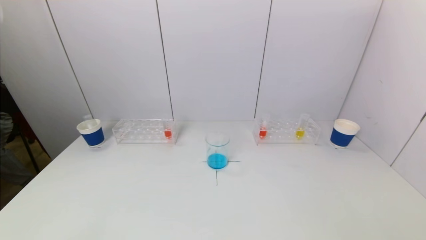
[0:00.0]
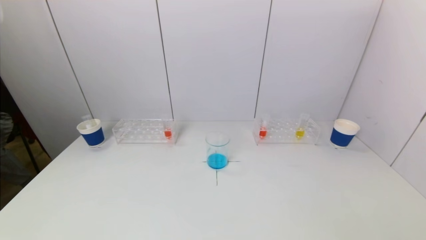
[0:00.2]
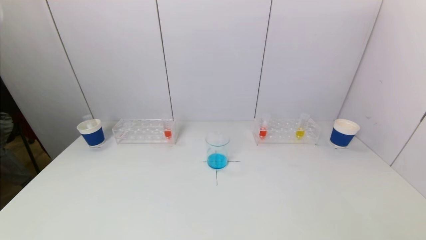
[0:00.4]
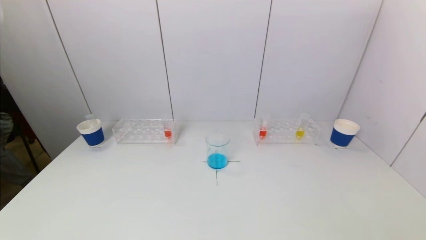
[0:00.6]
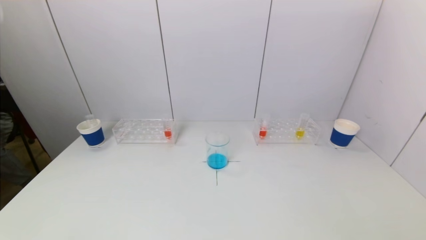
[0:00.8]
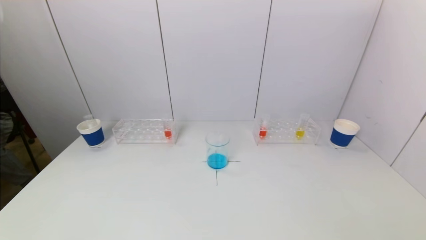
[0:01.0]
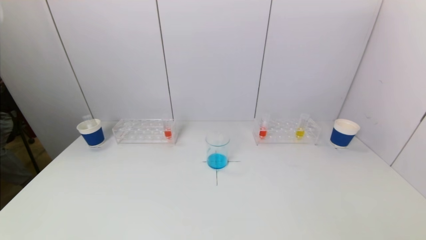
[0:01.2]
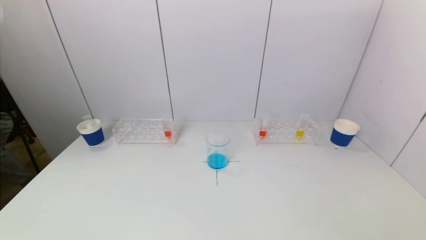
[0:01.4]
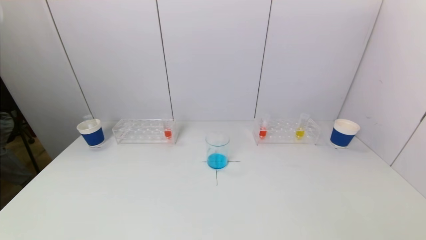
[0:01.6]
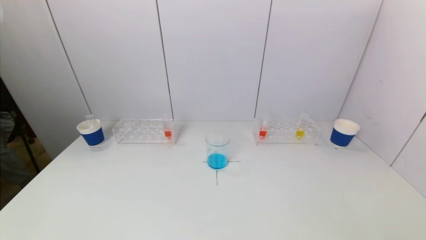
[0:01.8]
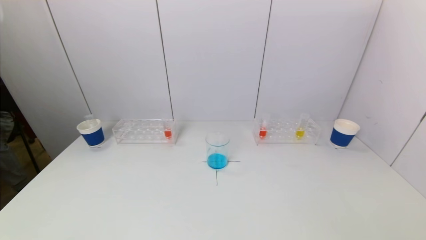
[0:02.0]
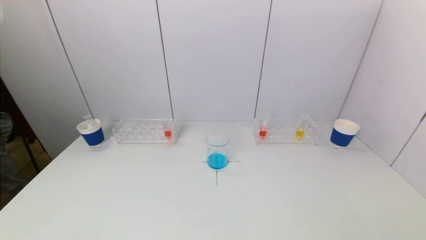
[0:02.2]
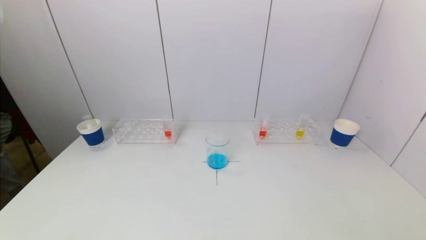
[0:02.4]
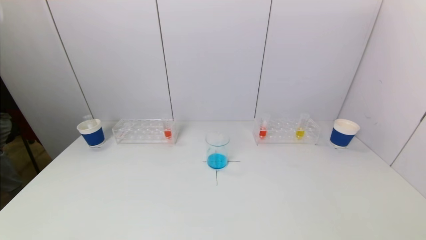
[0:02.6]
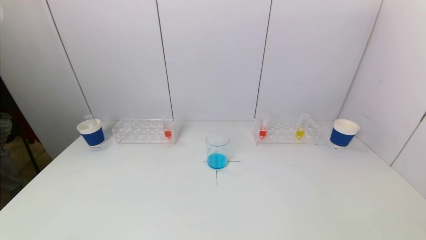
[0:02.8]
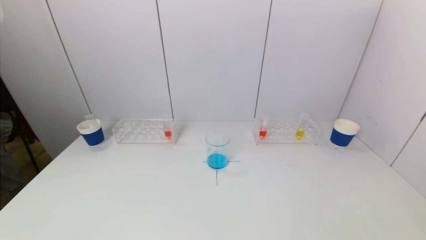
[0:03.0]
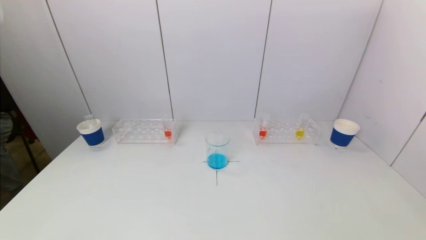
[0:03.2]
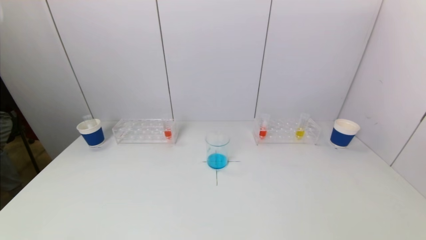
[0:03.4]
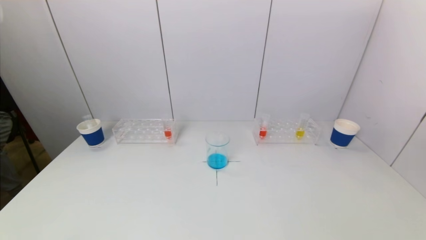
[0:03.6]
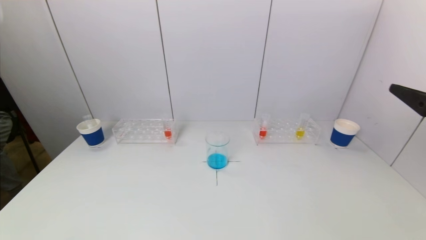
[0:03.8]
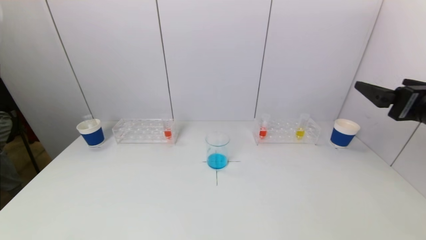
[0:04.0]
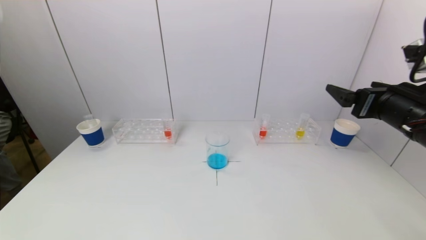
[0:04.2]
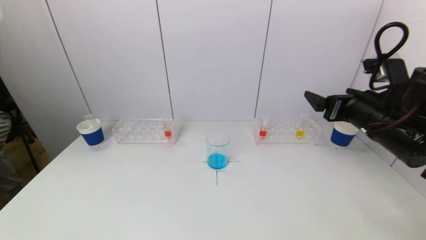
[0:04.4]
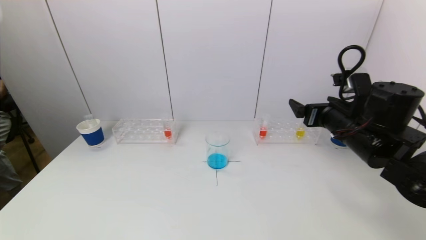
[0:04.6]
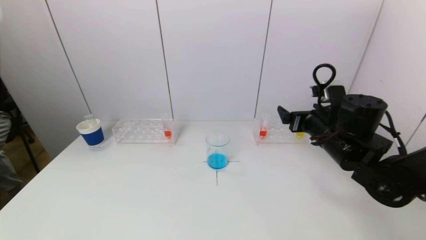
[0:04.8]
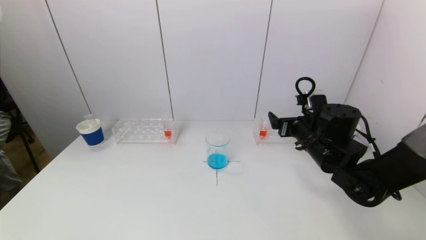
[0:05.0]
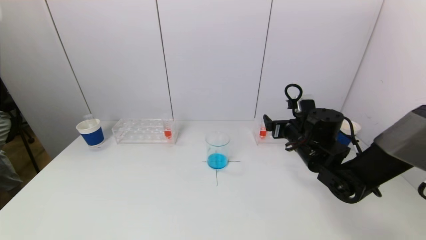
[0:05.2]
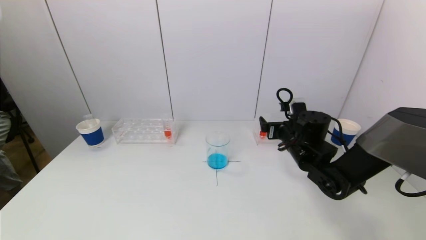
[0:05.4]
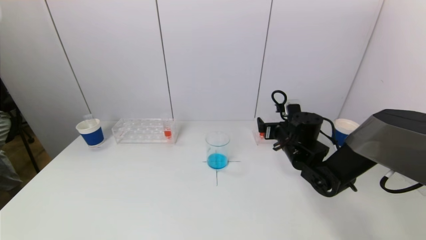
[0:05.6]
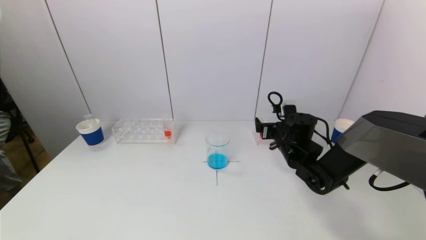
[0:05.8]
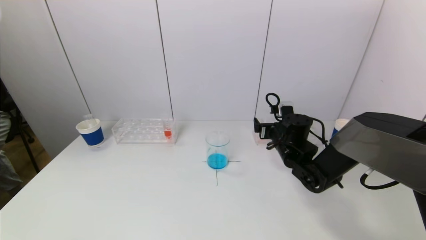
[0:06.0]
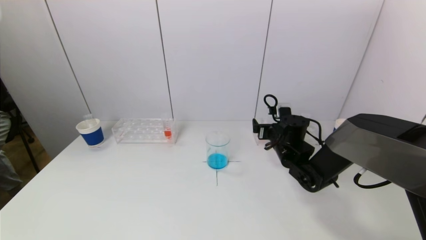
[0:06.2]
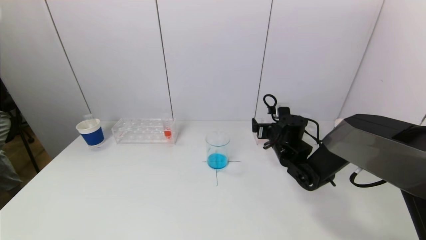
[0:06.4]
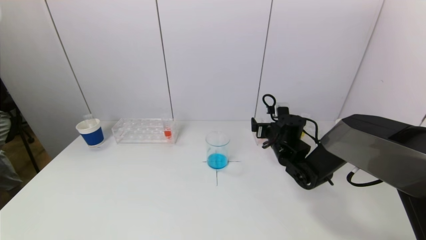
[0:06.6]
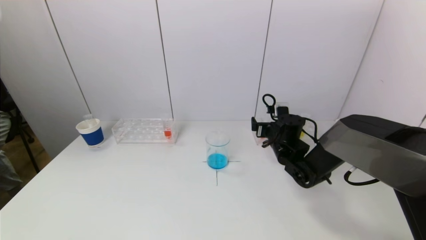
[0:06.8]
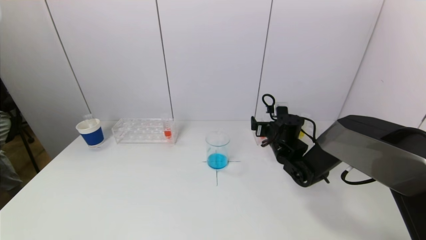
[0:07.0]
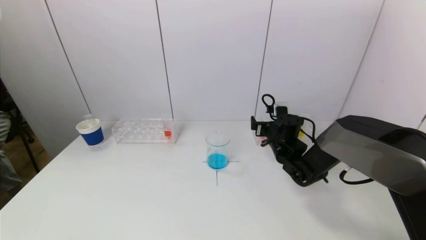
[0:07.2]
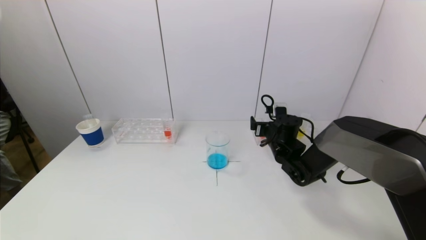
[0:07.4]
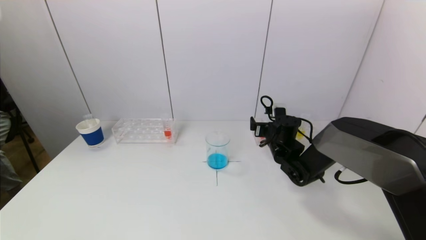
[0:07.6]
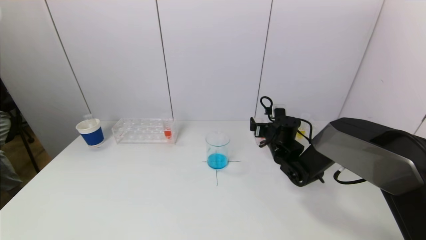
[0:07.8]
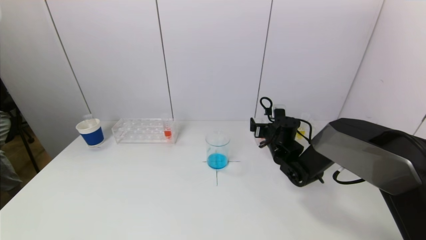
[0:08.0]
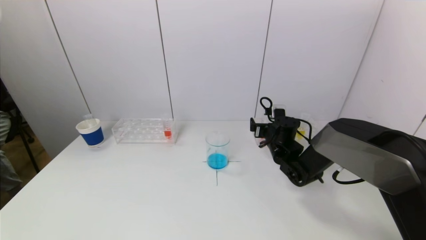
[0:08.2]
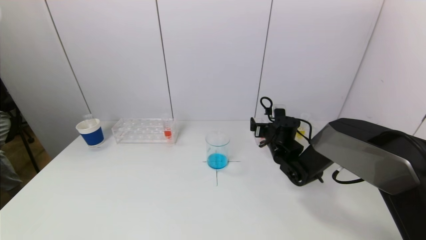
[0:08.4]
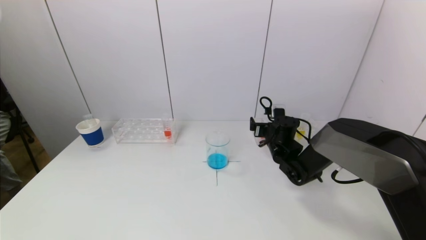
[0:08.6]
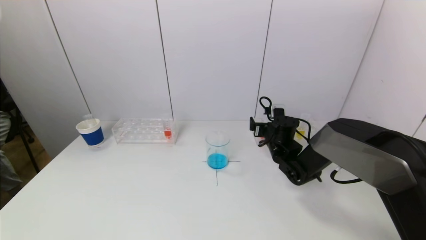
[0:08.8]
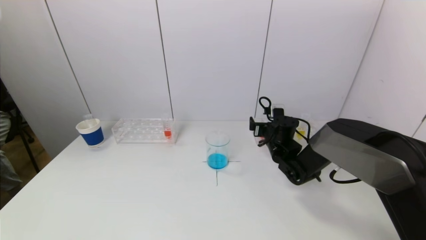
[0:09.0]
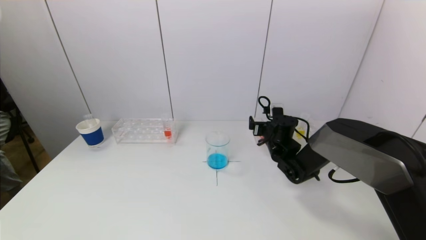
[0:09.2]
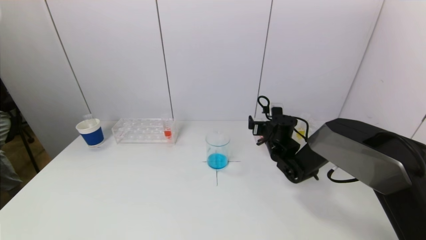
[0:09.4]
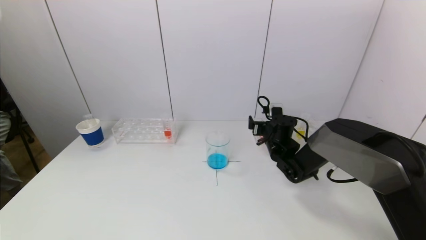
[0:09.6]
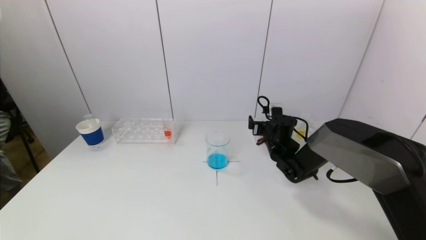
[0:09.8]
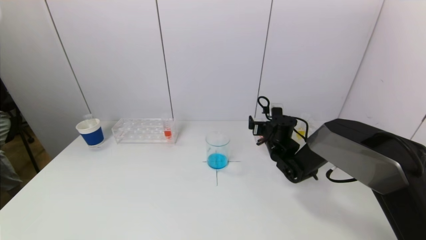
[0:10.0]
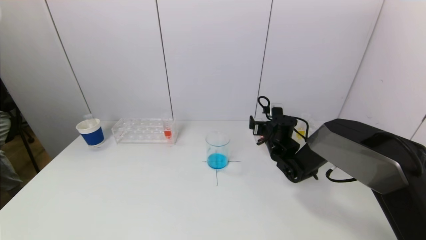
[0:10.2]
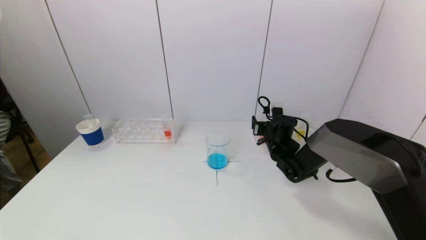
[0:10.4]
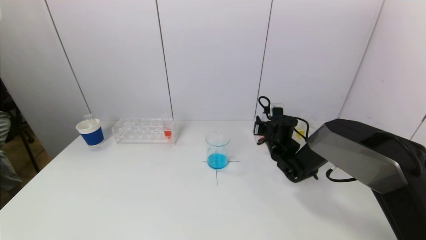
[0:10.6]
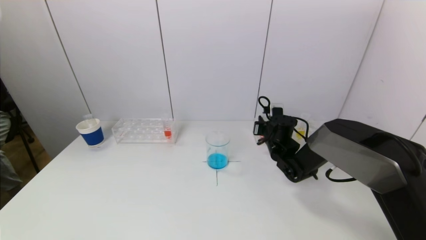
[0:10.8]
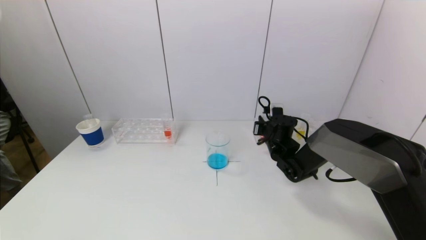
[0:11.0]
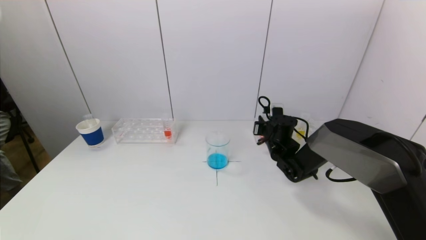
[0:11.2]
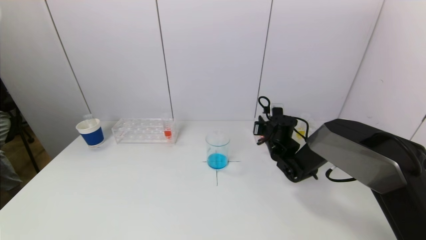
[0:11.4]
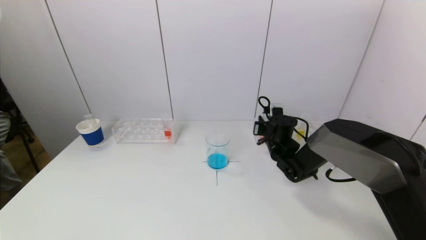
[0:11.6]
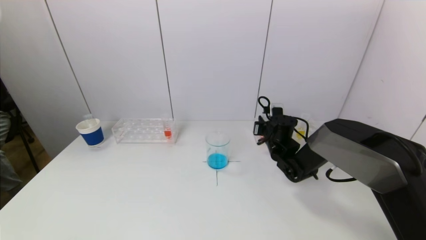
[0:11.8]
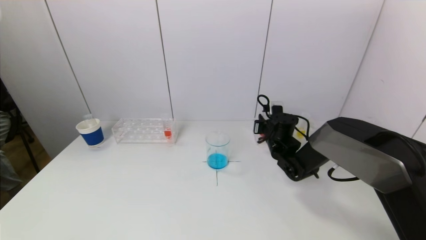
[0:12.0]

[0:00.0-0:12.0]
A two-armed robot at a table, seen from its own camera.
Task of the whole recording: pick up a test tube with pigment on left test tube rack and a test tube with pigment on right test tube rack by grippers and pour them into the beaker.
Step, 0:00.0 to 0:11.2: Grasp the red reagent with the right gripper.
0:03.0 to 0:04.4: The right gripper is displaced forward by roughly 30 cm.
0:04.4 to 0:06.0: The right gripper is displaced downward, forward and to the left by approximately 20 cm.
0:06.0 to 0:07.6: There are only small adjustments of the grippers.
0:07.6 to 0:09.0: Both grippers stay about where they are.
0:09.0 to 0:10.4: Both grippers stay about where they are.
0:10.4 to 0:12.0: The right gripper closes.

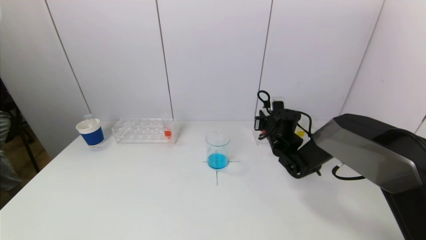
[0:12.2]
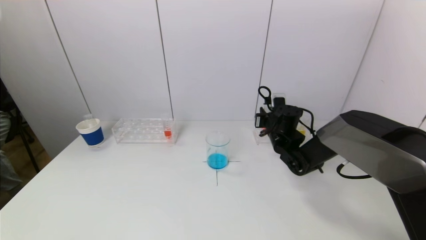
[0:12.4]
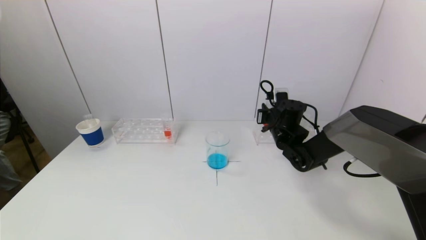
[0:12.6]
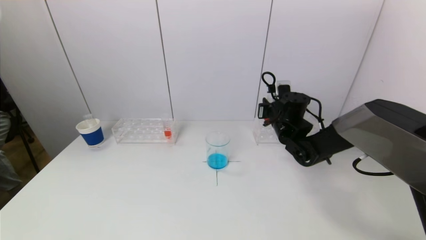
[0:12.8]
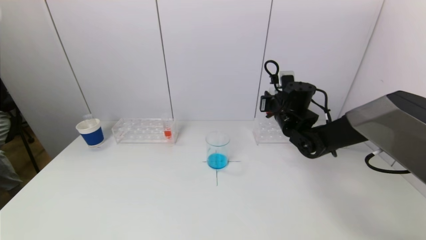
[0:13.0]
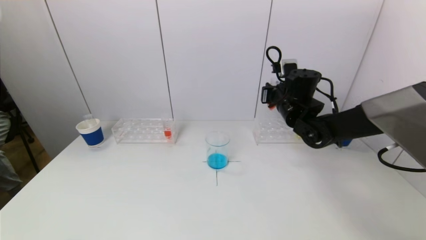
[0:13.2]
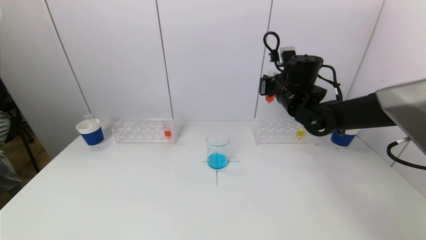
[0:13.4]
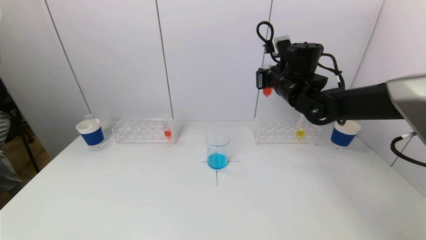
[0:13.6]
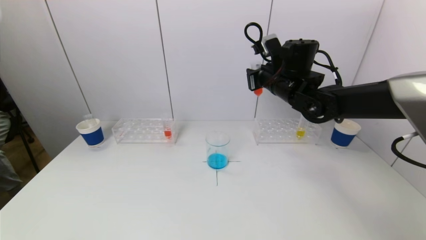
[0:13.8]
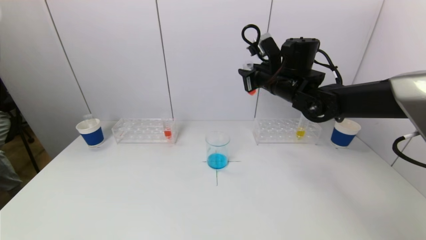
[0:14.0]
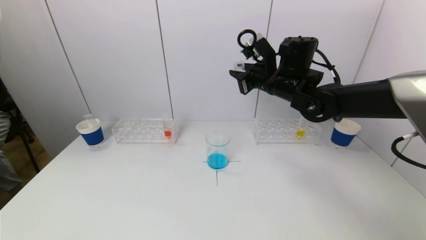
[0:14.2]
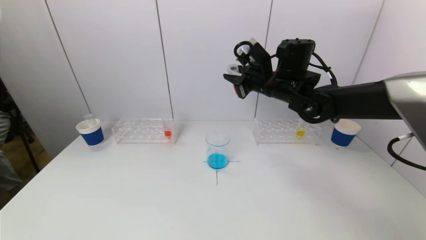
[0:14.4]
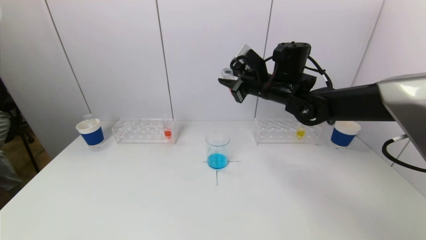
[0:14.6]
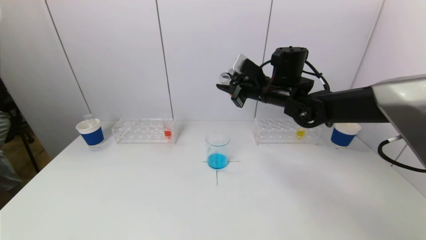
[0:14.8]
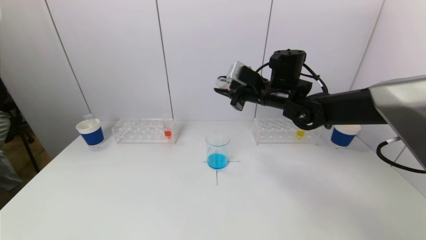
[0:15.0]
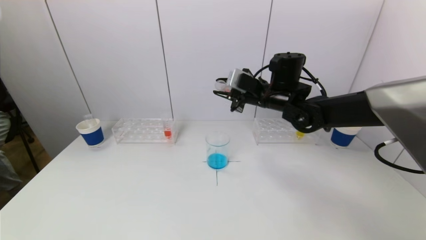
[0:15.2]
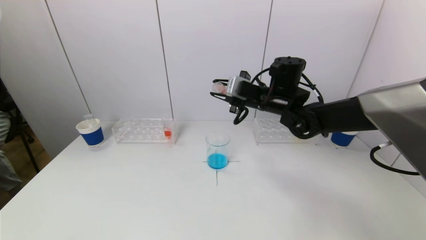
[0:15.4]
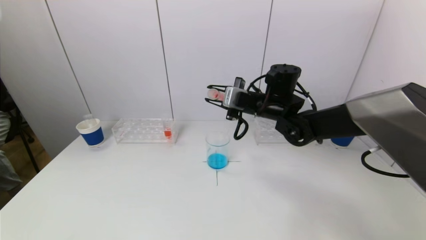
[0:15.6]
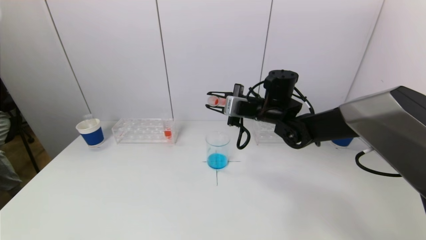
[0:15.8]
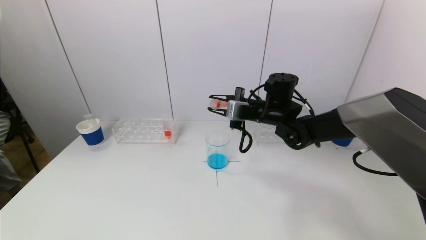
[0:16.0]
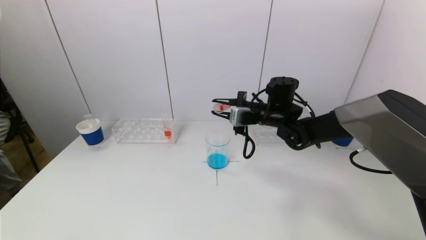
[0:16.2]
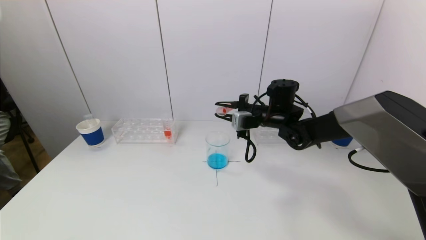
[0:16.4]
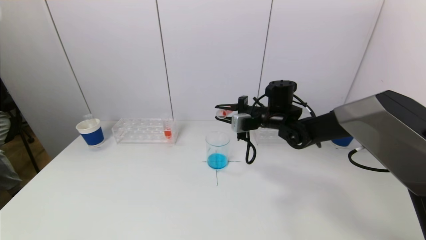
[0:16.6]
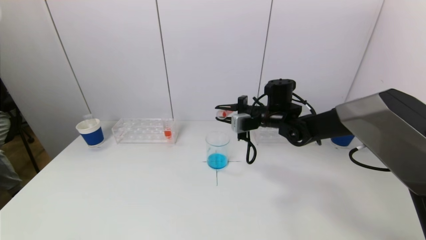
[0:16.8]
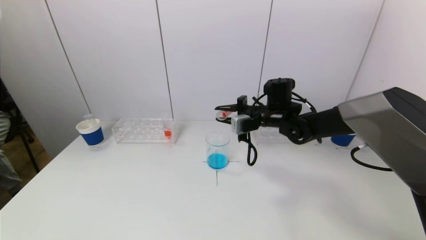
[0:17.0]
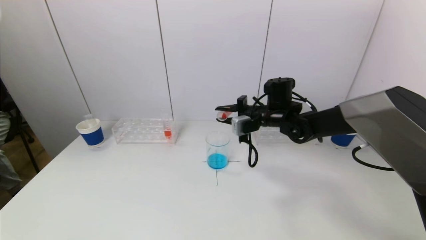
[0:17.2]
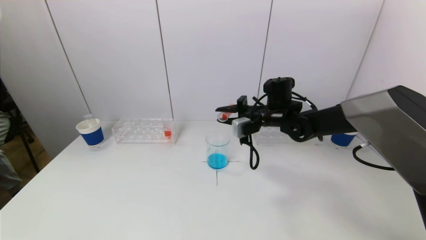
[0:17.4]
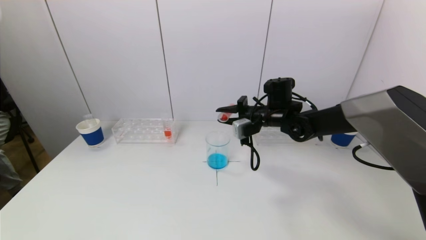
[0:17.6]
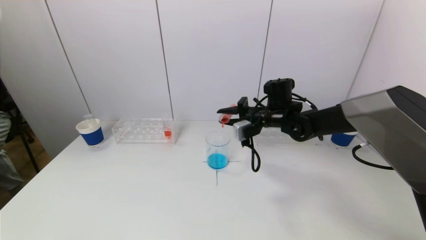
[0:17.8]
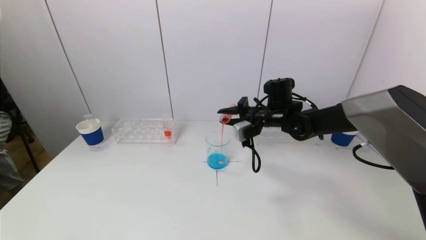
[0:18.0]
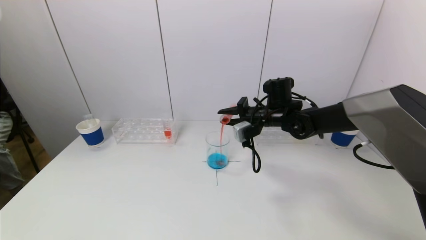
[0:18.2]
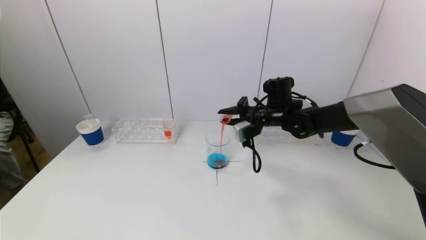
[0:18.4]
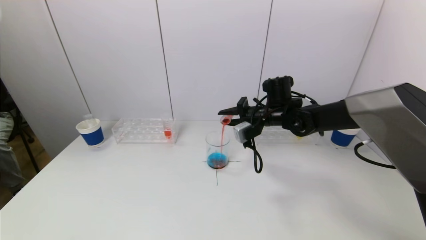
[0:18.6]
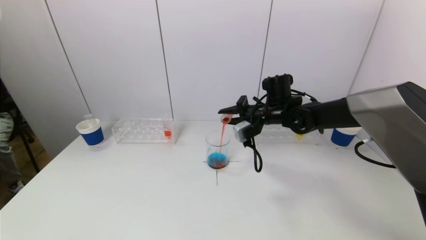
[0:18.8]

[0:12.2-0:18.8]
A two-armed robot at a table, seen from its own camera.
Task of the whole recording: pick up a test tube with pigment on left test tube rack and a test tube with pigment on right test tube rack by grippers and pour them into the beaker.
0:12.2 to 0:13.8: The right gripper moves upward, roughly 15 cm.
0:15.4 to 0:17.2: The right gripper goes some 5 cm downward.
0:17.2 to 0:18.8: The grippers stay close to where they were, moving slightly.
